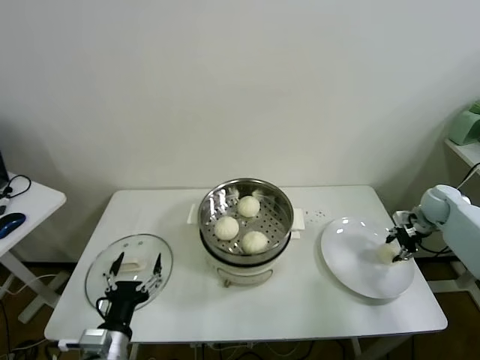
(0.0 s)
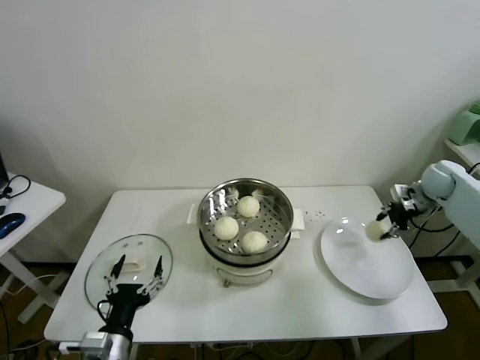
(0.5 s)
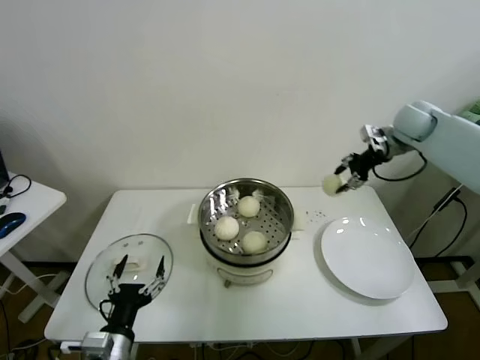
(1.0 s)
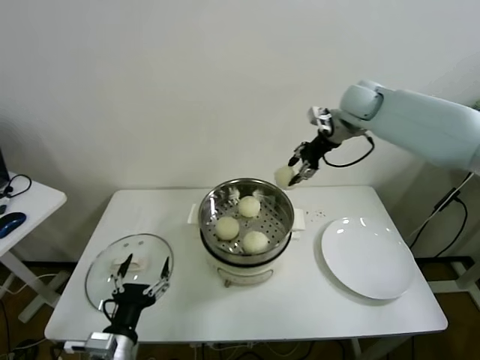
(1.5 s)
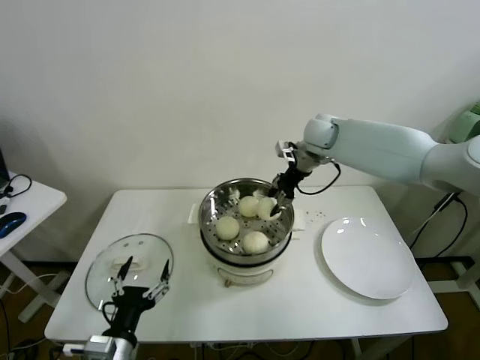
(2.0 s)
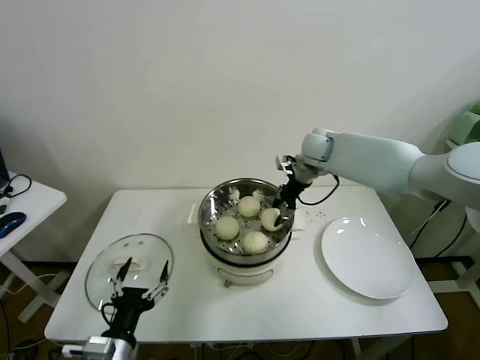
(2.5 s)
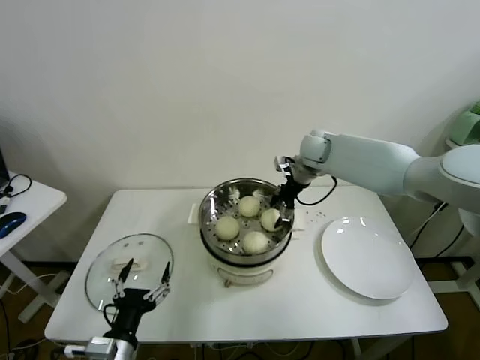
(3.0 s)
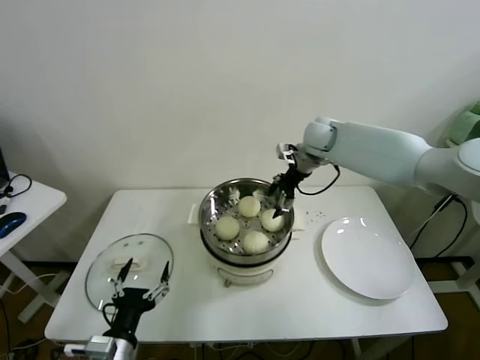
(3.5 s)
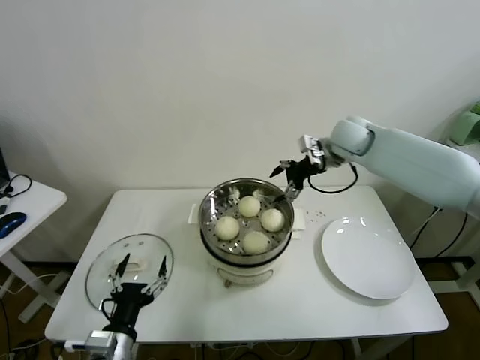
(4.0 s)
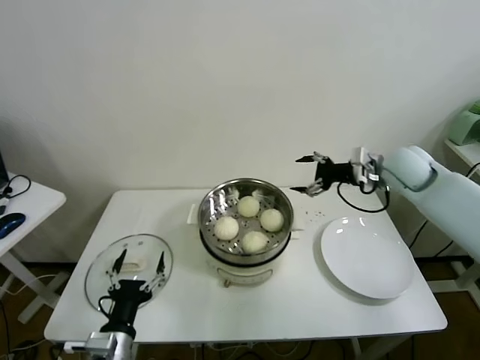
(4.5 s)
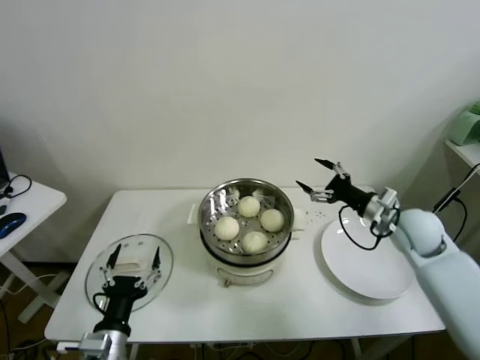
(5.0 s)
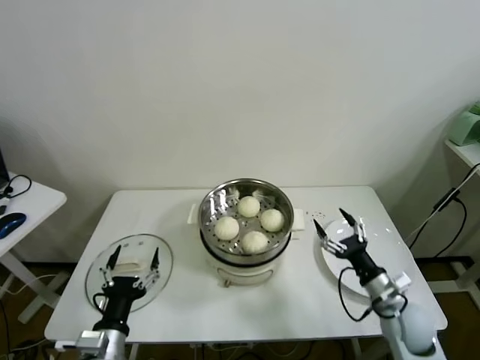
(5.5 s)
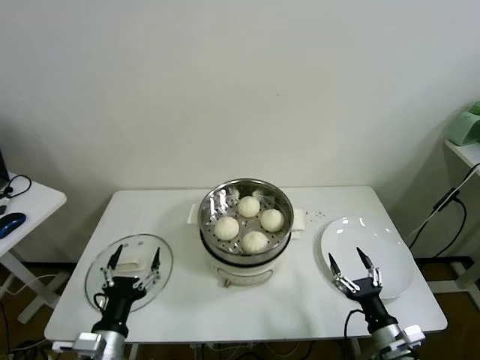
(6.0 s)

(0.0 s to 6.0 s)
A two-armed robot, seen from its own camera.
Task of the whole recording: take steamed baozi put them in steamer.
Step, 0.0 s - 3.0 s: Place the baozi on the steamer with right gripper.
0.0 s - 2.0 s: The right gripper shifts about 35 cm to the left and upward.
2.0 s - 4.0 s: The right gripper shifts by roughly 5 cm, and opens.
4.0 s - 6.0 s: The right gripper moves backward and downward, about 50 cm.
